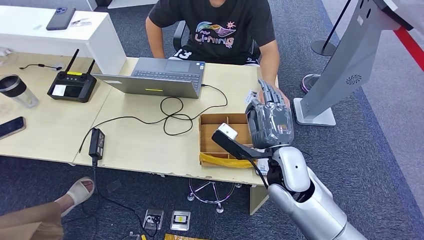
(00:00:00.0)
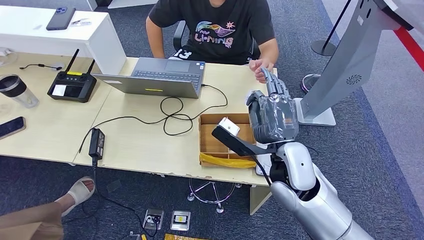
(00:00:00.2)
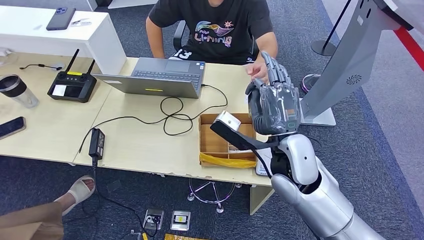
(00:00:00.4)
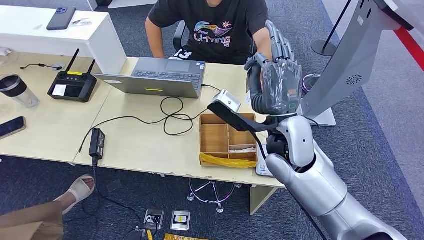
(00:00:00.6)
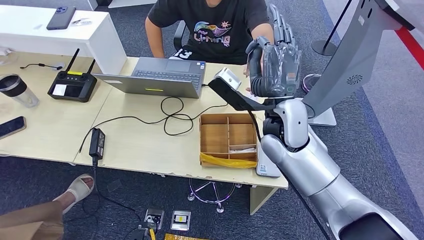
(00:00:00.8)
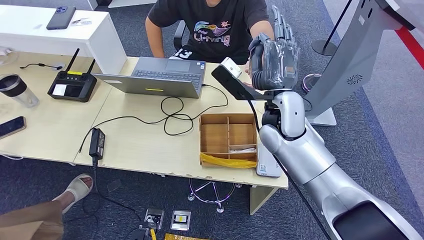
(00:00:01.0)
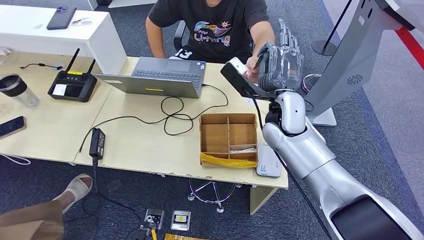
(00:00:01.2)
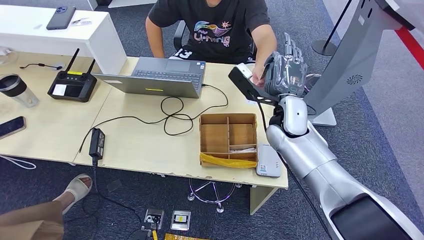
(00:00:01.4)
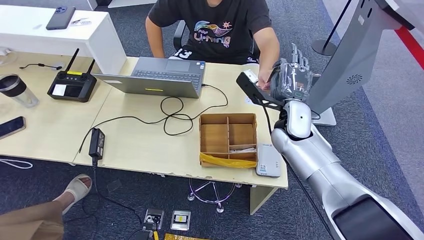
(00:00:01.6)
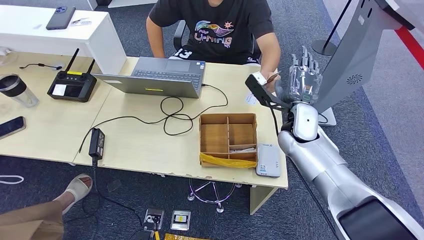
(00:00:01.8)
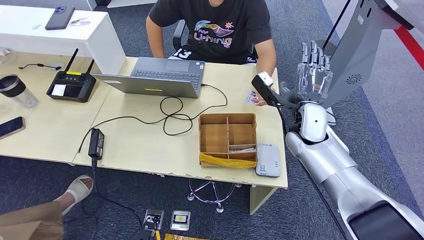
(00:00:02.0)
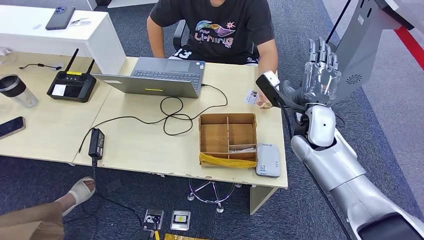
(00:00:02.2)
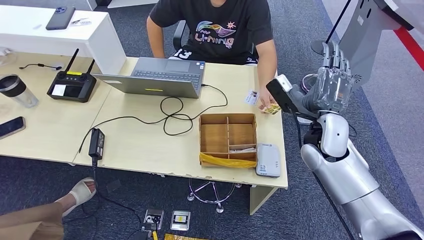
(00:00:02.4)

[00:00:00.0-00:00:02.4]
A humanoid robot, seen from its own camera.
Step, 00:00:00.0 to 00:00:02.4: Hand the room key to the person.
00:00:00.0 to 00:00:01.2: The right hand moves forward and upward, roughly 10 cm.
00:00:01.2 to 00:00:02.4: The right hand moves to the right, about 10 cm.
